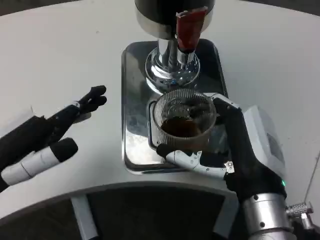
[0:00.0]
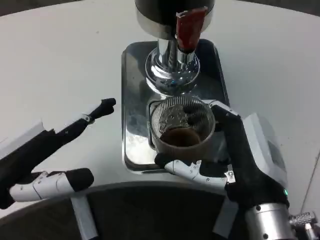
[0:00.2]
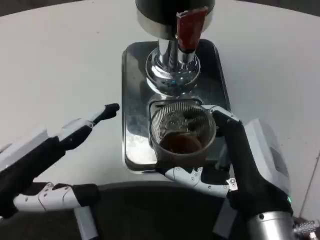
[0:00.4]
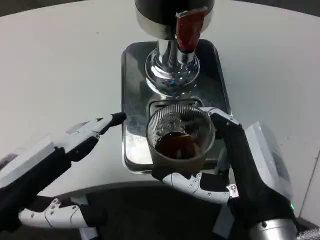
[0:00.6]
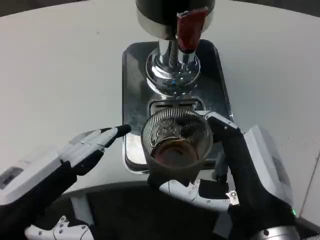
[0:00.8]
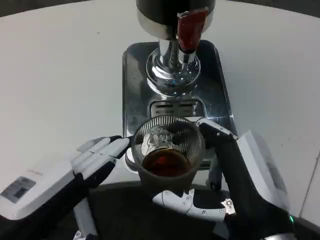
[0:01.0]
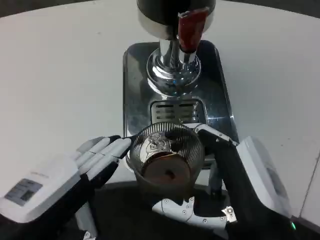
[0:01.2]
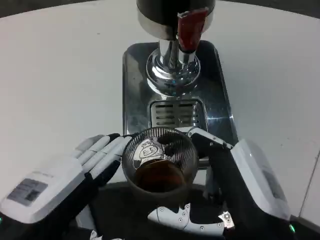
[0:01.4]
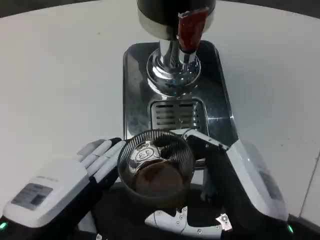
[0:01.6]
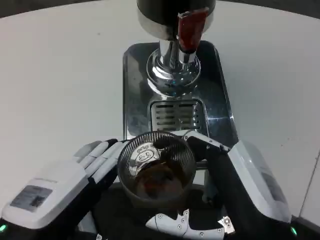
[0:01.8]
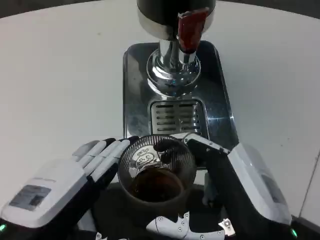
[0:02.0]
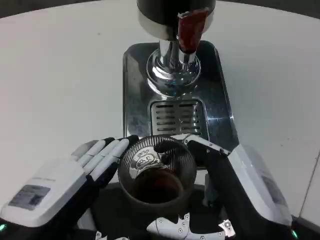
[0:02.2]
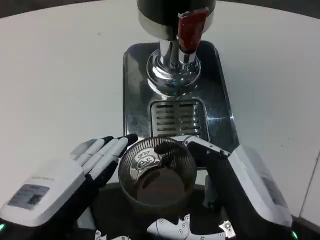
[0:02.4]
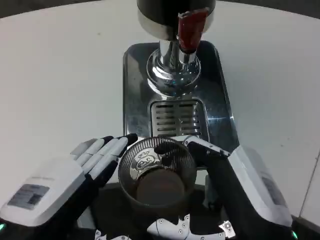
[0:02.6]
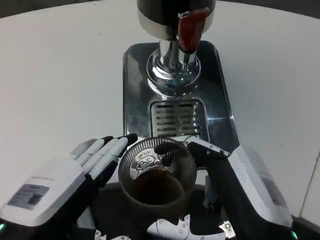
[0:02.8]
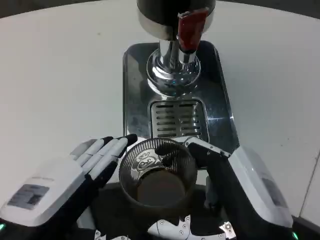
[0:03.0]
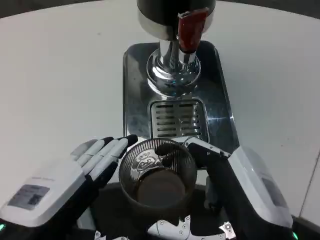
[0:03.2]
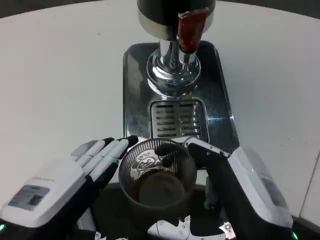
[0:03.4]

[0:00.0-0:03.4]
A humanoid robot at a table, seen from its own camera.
Task of the whole recording: Grasp the cup under the faucet to collect the drink, then remove the cup.
0:00.0 to 0:01.6: The right hand moves backward, some 5 cm. Meanwhile the left hand goes some 10 cm to the right and backward.
0:01.6 to 0:03.4: Both hands stay put.

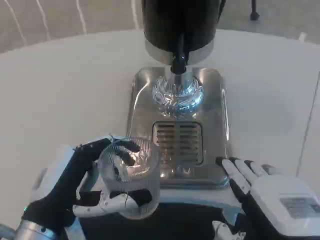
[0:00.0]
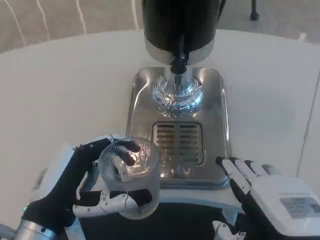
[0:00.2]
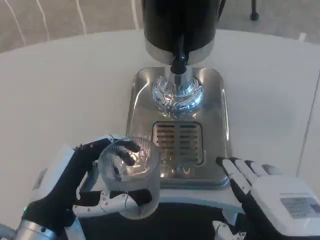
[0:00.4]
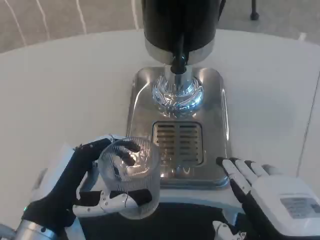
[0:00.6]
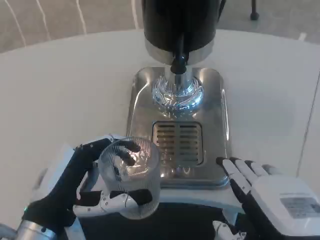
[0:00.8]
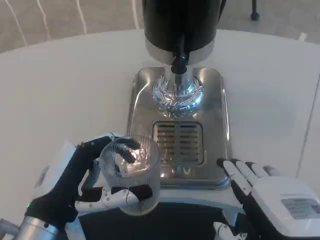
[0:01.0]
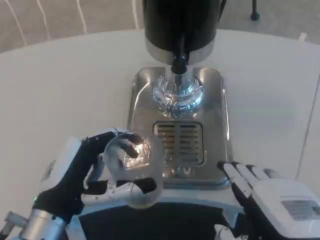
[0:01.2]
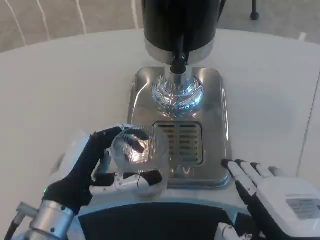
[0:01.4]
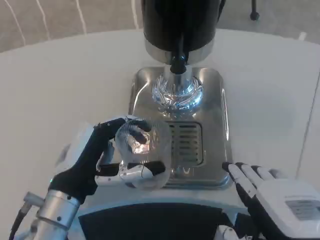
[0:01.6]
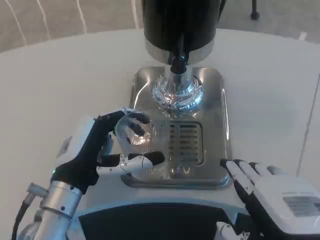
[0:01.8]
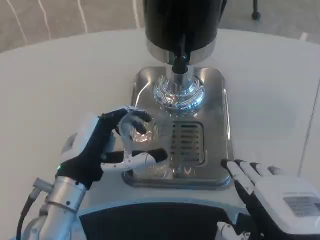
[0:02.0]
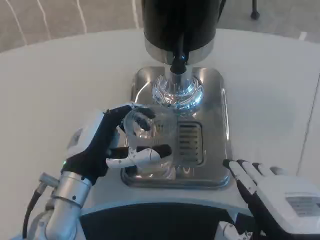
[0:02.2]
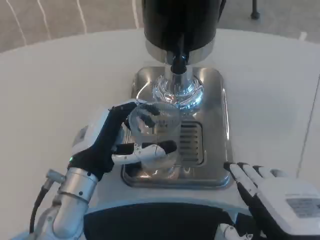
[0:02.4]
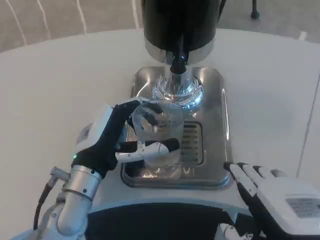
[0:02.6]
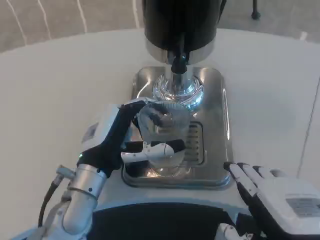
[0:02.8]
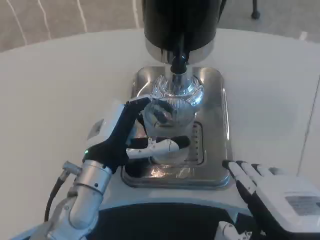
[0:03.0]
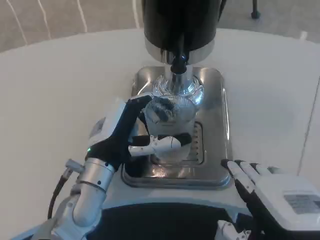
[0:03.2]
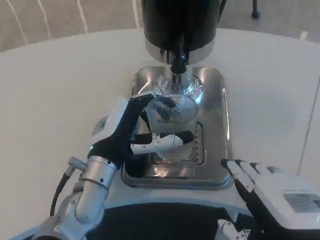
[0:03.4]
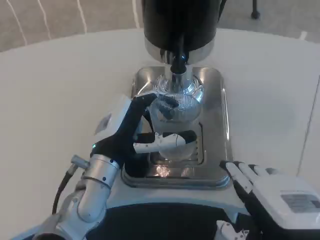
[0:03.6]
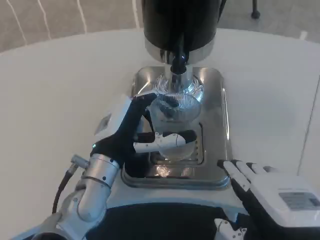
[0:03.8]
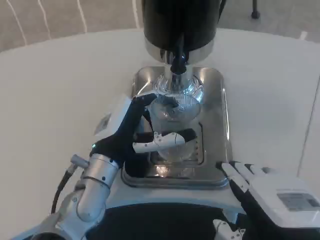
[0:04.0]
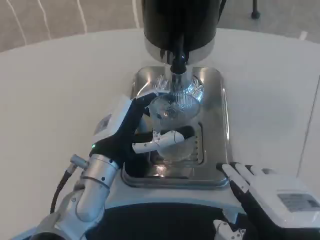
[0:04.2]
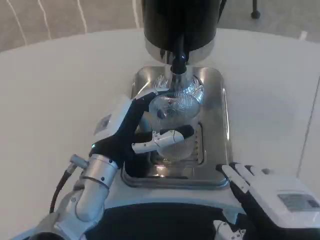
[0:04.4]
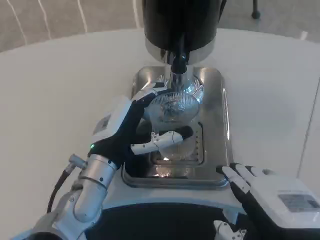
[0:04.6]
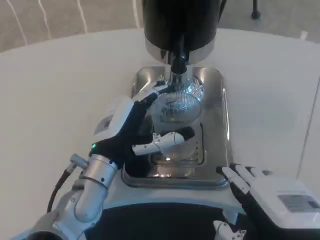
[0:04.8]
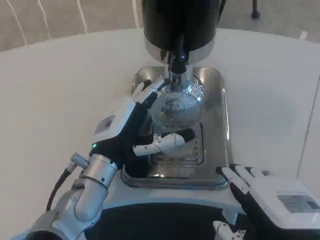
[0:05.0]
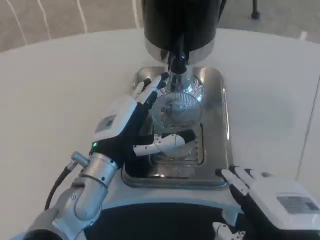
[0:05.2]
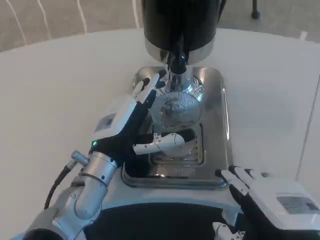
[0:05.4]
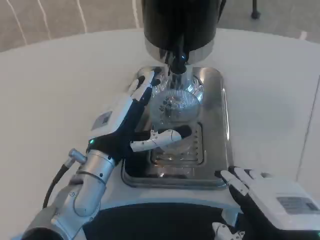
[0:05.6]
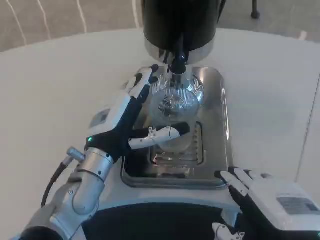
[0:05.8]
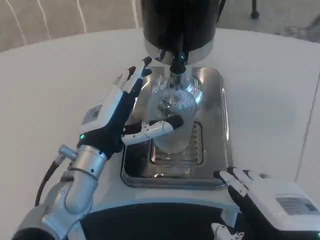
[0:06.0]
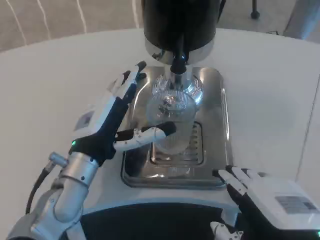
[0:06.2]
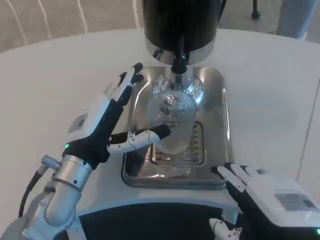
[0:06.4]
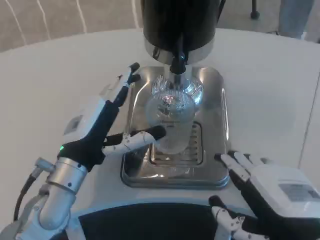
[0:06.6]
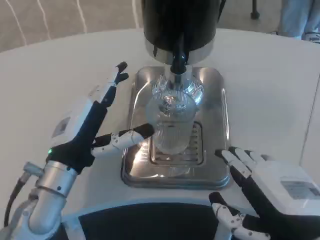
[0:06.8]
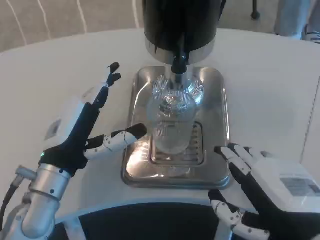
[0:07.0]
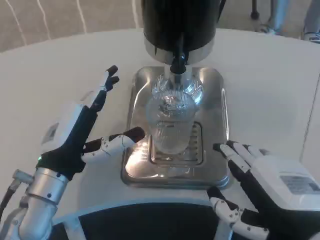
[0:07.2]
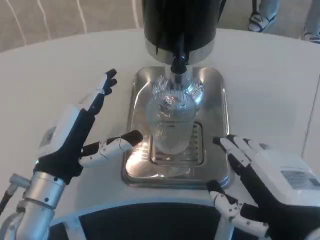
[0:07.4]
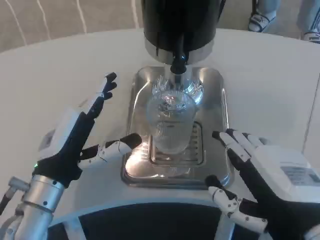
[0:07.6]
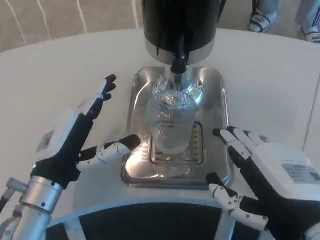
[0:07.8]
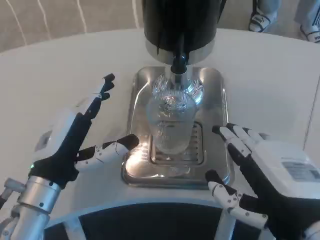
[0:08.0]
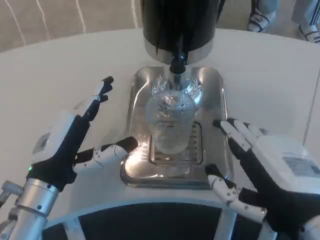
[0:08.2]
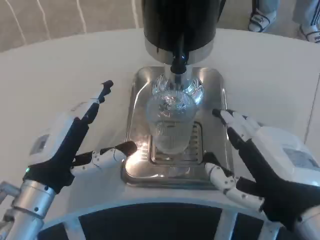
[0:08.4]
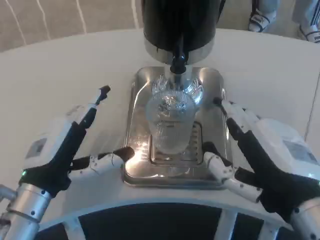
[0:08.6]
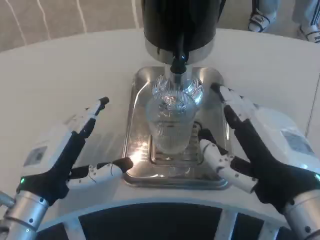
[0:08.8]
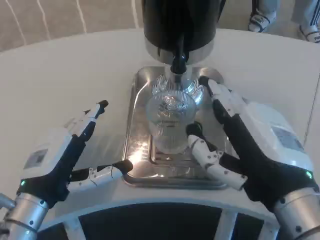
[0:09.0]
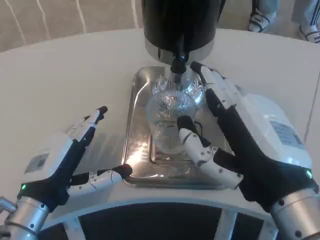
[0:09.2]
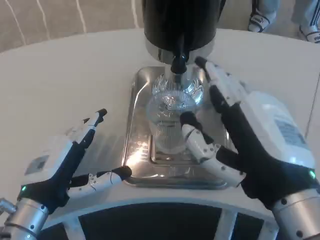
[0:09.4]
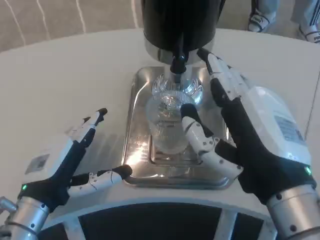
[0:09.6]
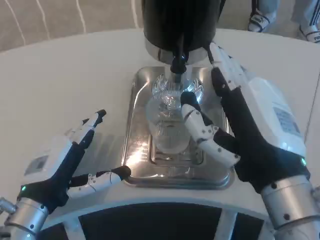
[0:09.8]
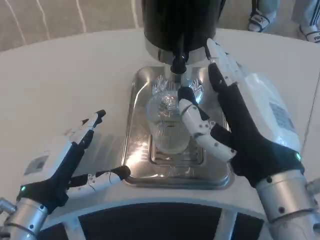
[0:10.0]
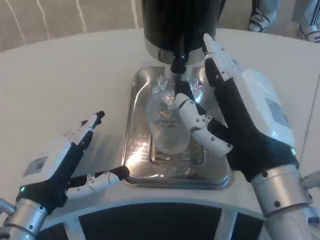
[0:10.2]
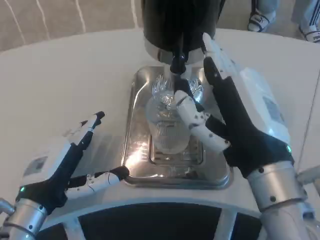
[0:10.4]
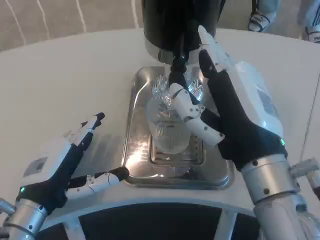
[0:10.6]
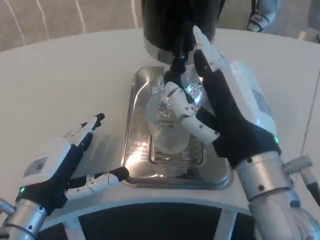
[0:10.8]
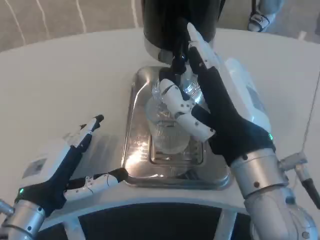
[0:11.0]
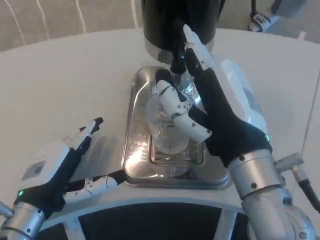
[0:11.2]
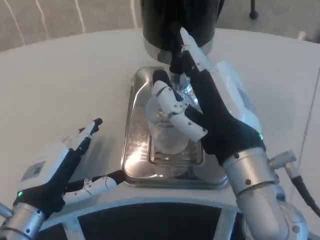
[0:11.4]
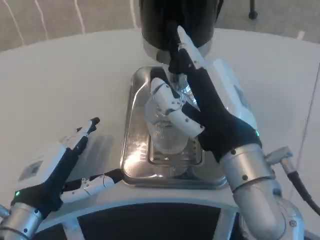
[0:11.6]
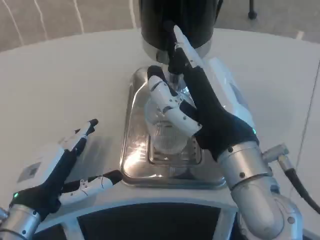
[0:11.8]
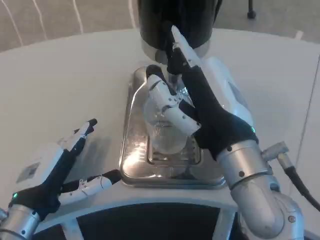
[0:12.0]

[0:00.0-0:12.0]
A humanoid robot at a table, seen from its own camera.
Task of the whole recording: Grasp the cup under the faucet to collect the drink, then remove the cup.
0:00.0 to 0:01.6: The left hand goes roughly 5 cm forward.
0:01.6 to 0:03.0: The left hand moves forward, roughly 5 cm.
0:03.0 to 0:04.4: Both hands stay put.
0:04.4 to 0:06.0: The hands move only a little.
0:06.0 to 0:07.6: The left hand moves to the left, some 5 cm.
0:09.0 to 0:10.4: There are only small adjustments of the hands.

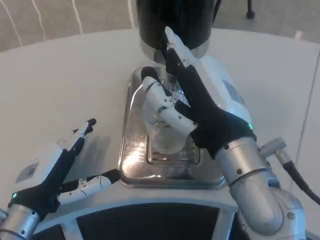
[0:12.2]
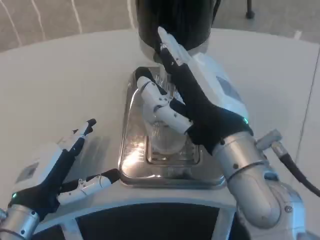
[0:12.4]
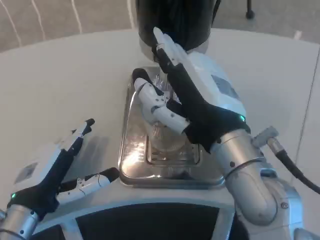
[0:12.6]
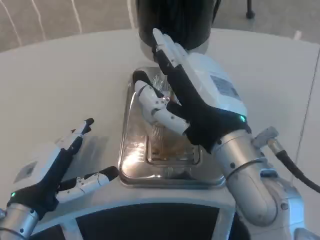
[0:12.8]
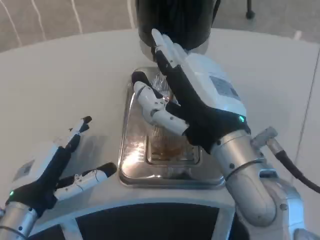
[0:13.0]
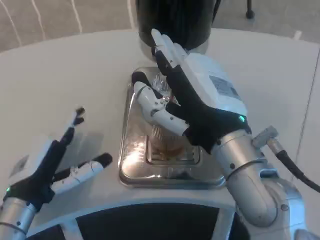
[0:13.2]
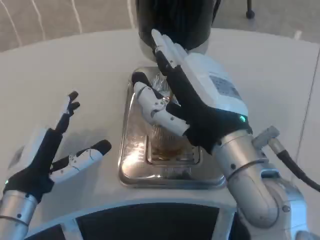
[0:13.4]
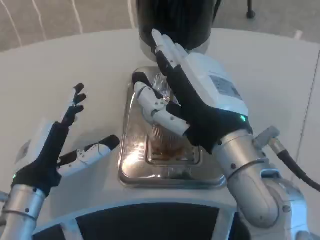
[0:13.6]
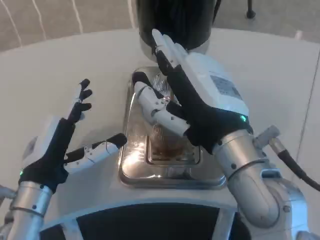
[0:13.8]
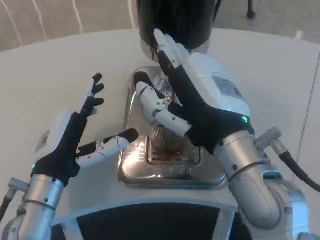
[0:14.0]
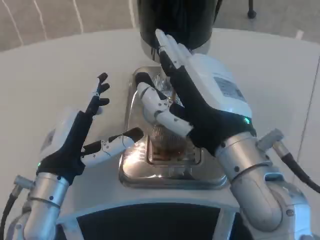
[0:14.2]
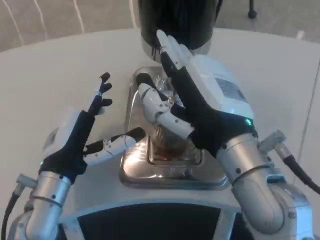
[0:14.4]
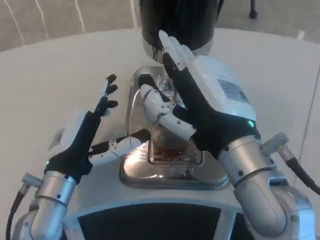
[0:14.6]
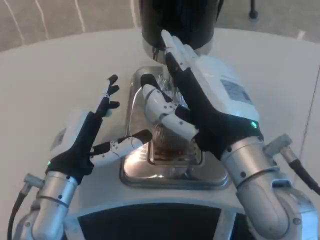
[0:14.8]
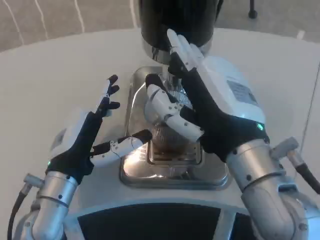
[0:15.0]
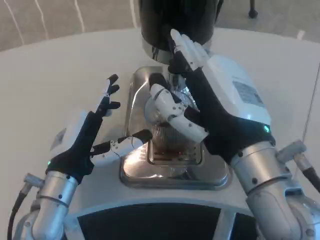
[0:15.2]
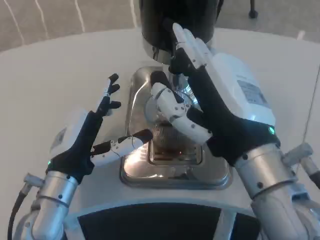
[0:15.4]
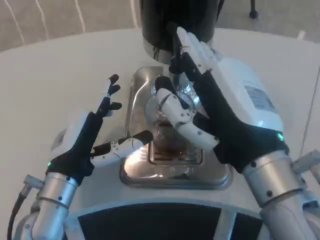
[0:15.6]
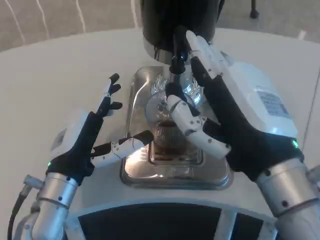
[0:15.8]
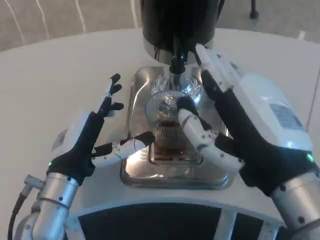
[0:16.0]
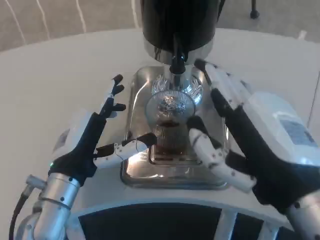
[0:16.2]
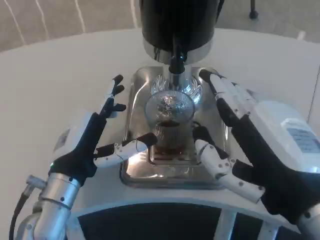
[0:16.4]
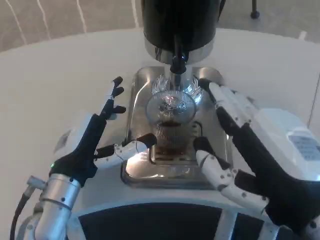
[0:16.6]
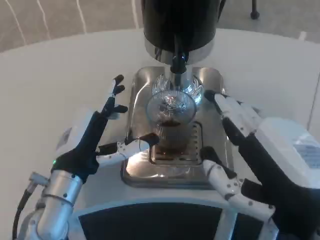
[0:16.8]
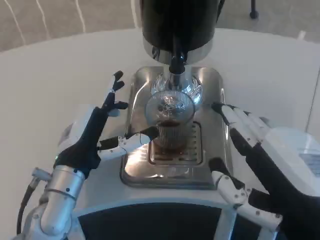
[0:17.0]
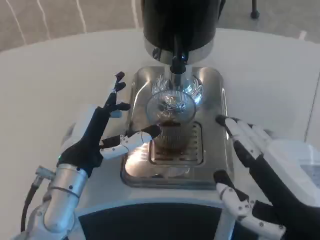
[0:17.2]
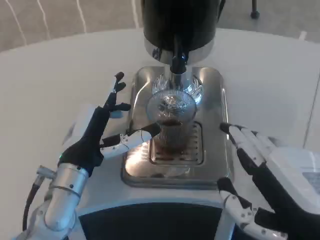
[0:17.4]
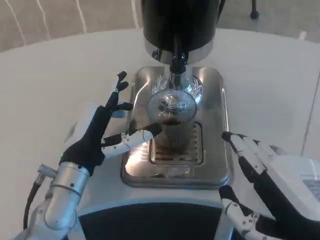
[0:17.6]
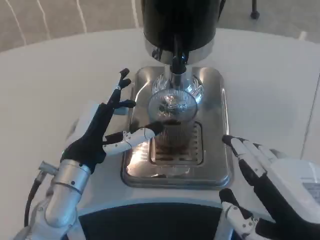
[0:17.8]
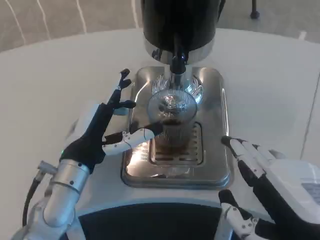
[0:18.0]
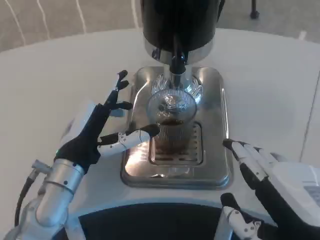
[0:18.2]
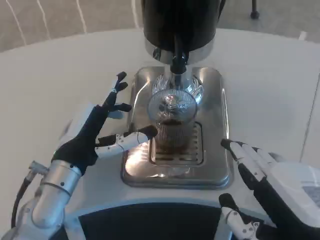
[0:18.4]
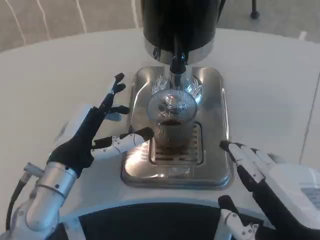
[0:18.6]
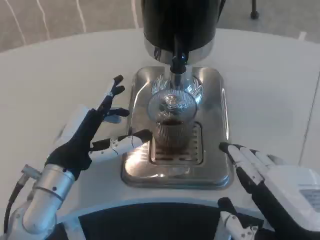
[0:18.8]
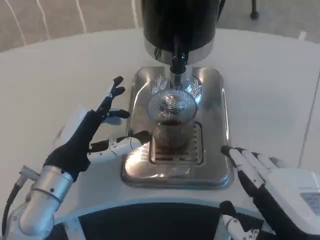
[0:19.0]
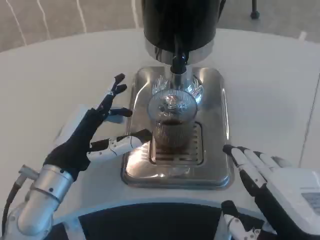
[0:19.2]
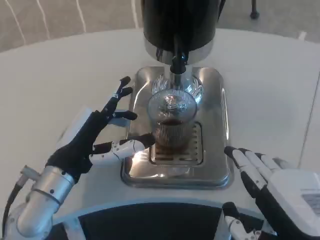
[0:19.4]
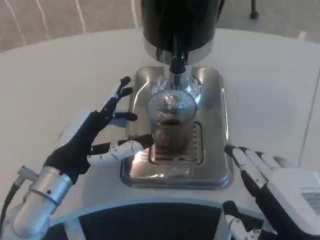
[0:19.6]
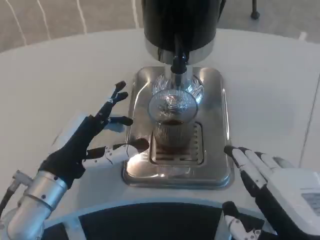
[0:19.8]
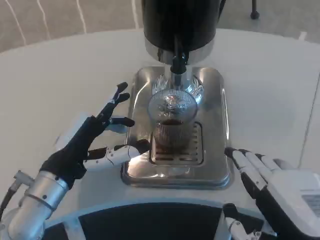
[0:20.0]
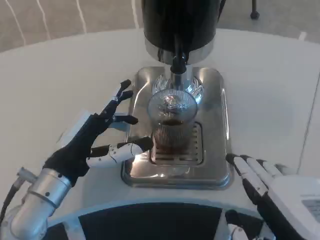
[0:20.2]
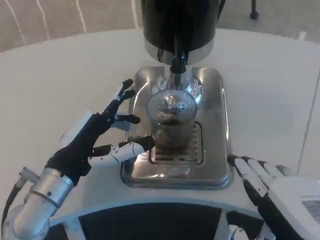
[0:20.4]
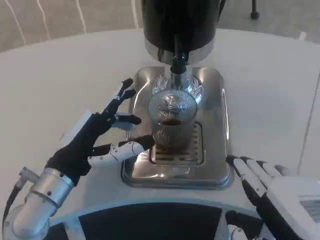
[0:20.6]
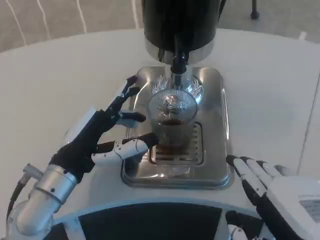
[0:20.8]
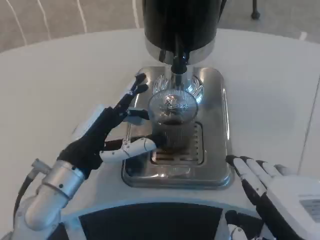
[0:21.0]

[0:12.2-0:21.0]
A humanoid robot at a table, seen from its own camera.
Task of the whole recording: Grasp the cup under the faucet to collect the drink, then remove the cup.
0:15.2 to 0:16.6: The right hand goes about 10 cm backward and to the right.
0:16.6 to 0:19.6: The hands move only a little.
0:19.6 to 0:21.0: The hands stay close to where they were, moving slightly.
